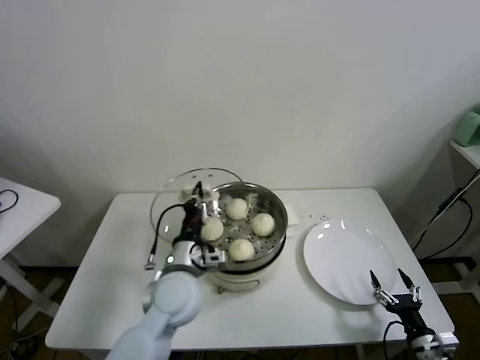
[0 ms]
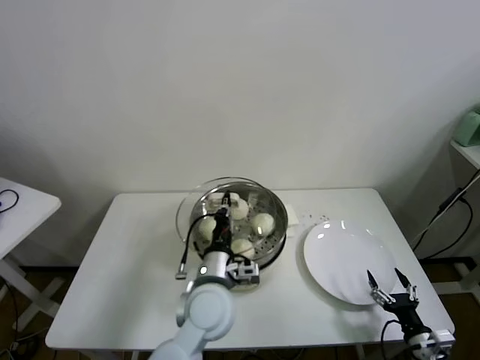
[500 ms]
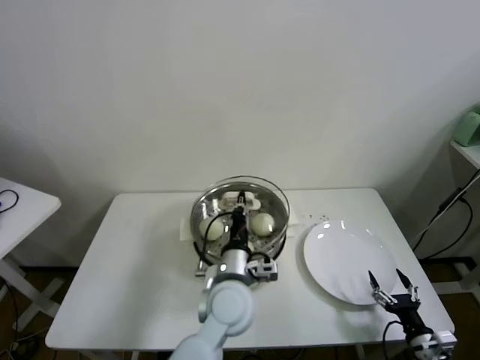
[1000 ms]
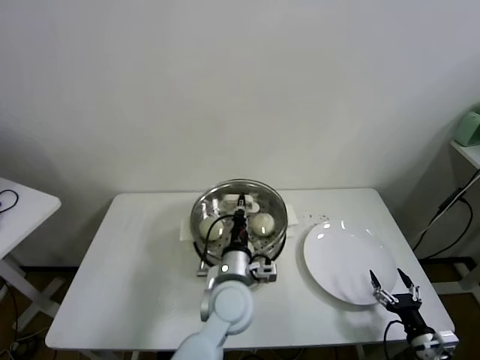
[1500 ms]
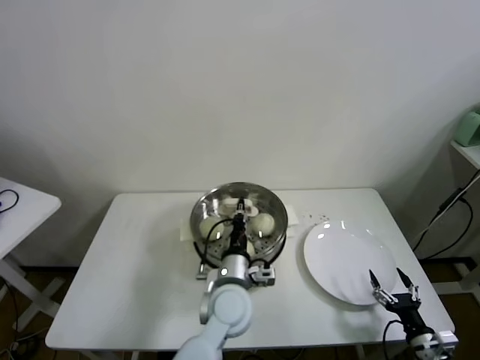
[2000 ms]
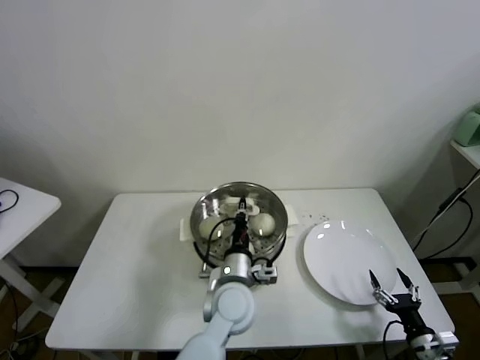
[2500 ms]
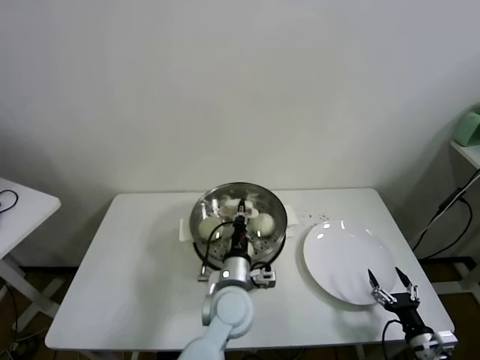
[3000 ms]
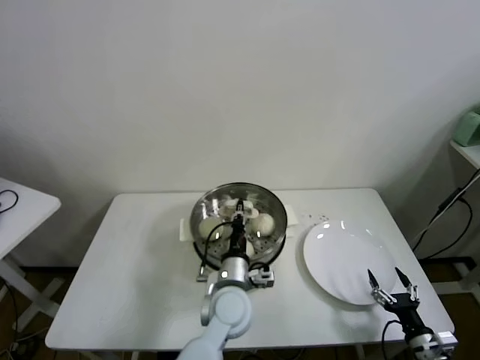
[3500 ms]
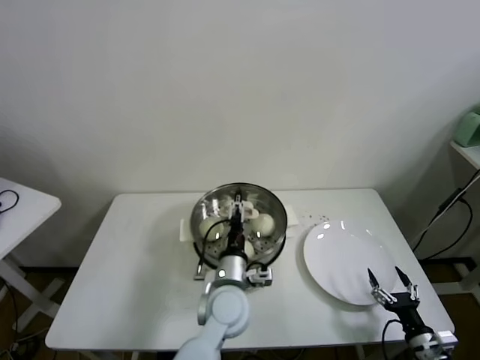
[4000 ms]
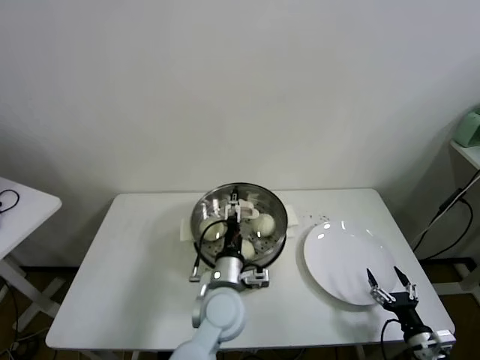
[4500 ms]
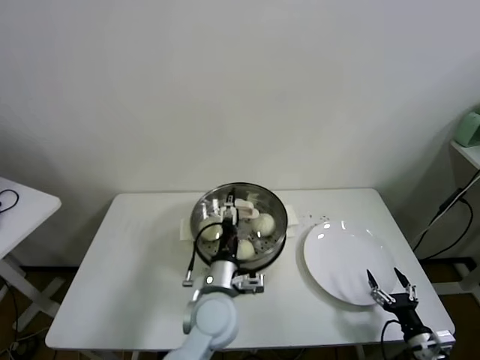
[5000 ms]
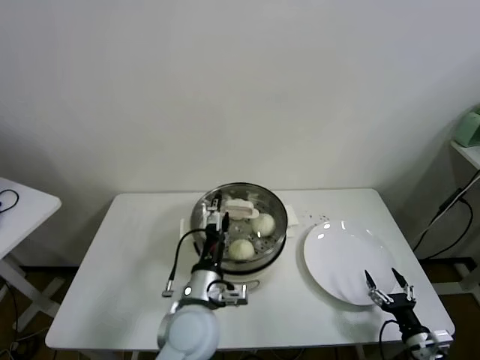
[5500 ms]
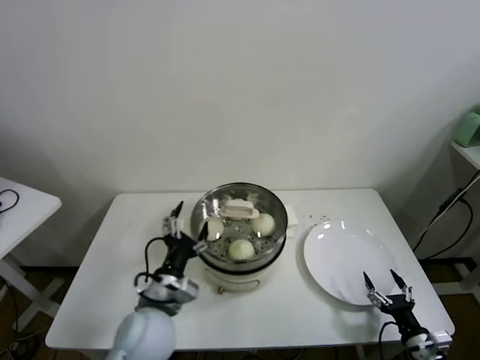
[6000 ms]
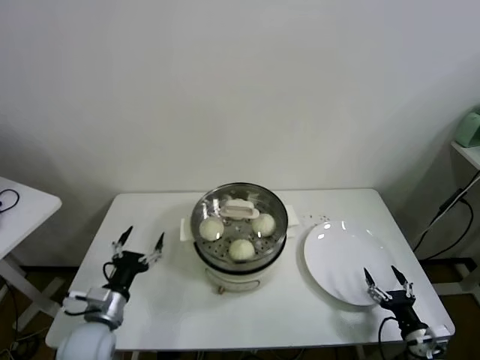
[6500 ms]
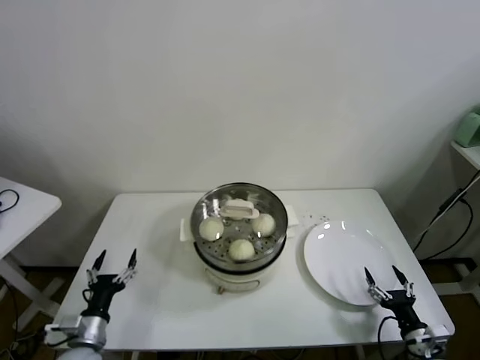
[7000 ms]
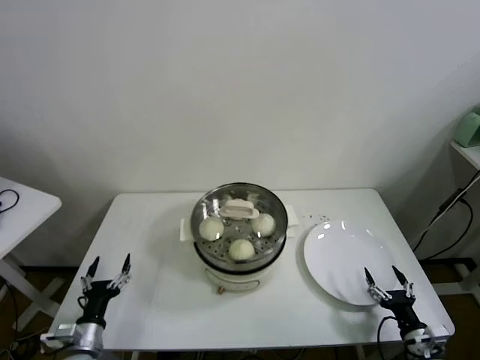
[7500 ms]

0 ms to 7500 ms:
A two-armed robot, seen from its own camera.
Task of the whole recording: take steamed baozi put them in steamer.
0 ms to 2000 ms: The left gripper shifts approximately 10 cm to the right.
2000 ms to 4000 ms: The left gripper opens up.
4000 ms to 5500 ms: The left gripper goes about 5 cm to the left.
5500 ms to 7500 ms: The left gripper moves to the left and downward, some 30 cm.
